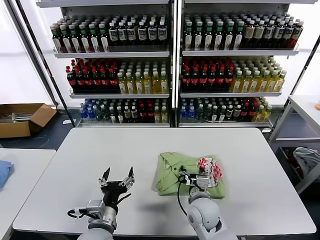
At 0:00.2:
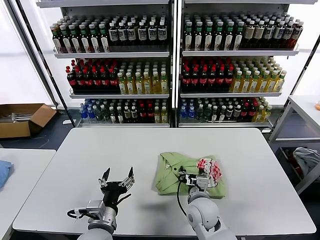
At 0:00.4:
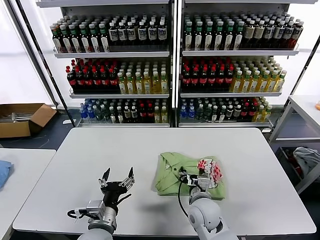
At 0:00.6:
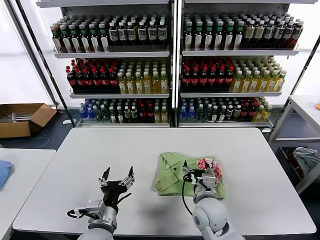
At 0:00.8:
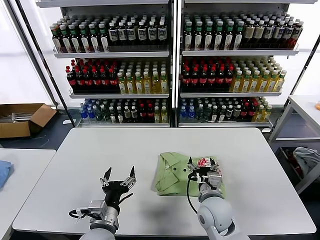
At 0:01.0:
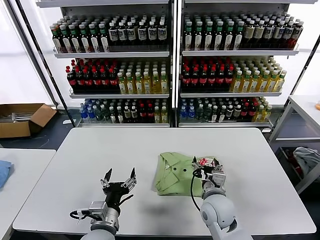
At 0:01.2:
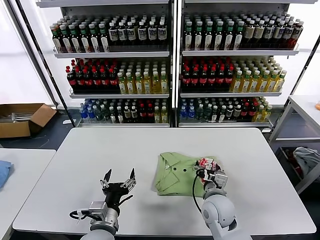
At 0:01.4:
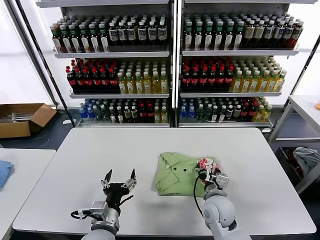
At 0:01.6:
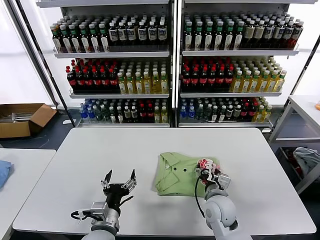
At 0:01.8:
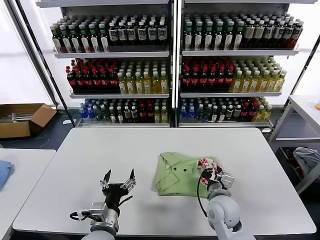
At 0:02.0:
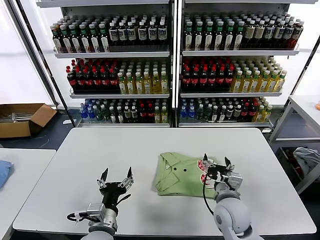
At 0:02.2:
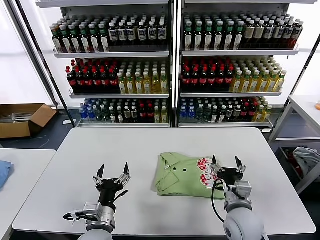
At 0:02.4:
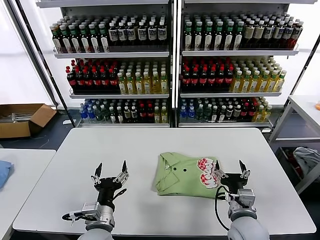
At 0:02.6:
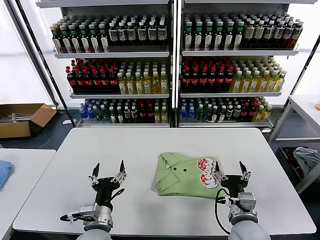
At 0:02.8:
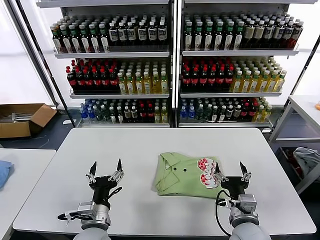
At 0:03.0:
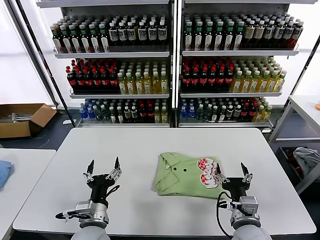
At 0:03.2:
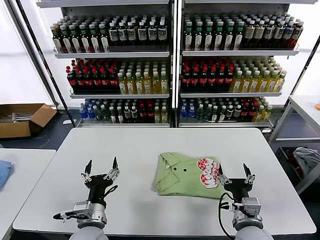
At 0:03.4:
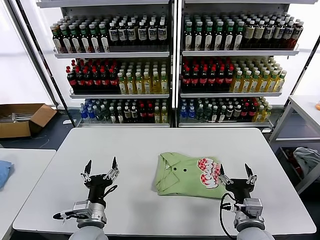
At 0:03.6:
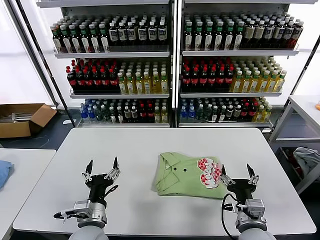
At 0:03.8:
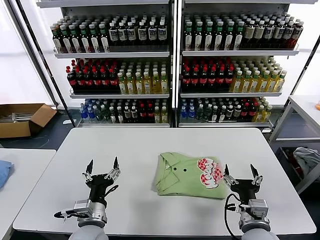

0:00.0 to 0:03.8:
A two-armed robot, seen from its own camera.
Task of the whole recording: fold and organize the clothes.
0:00.0 to 0:01.2: The grippers stay close to where they were, moving slightly.
0:01.2 to 0:02.6: The right gripper heads backward and to the right, covering about 10 cm.
0:02.6 to 0:03.8: The grippers move only a little.
